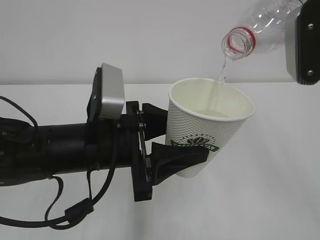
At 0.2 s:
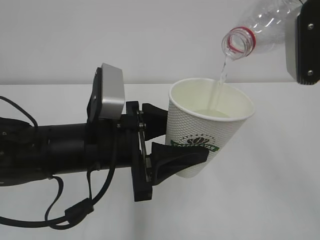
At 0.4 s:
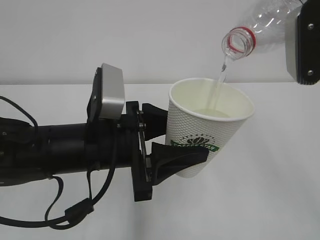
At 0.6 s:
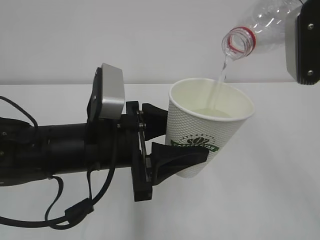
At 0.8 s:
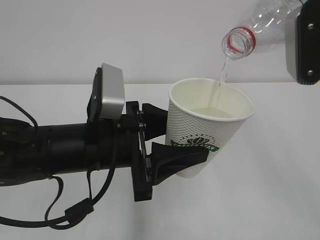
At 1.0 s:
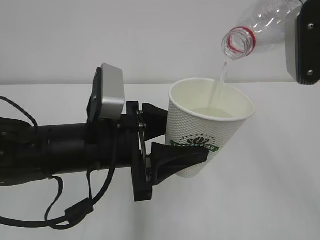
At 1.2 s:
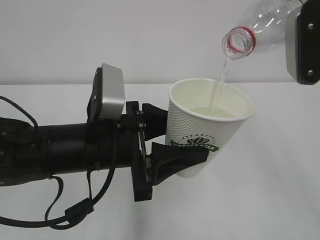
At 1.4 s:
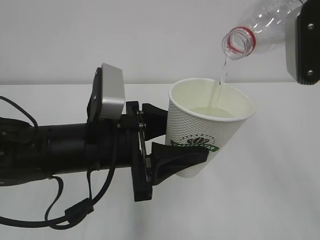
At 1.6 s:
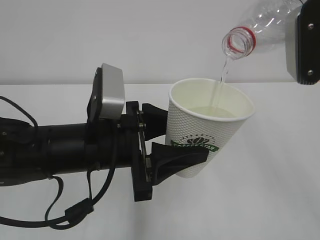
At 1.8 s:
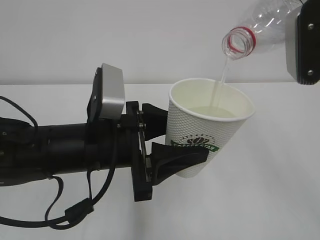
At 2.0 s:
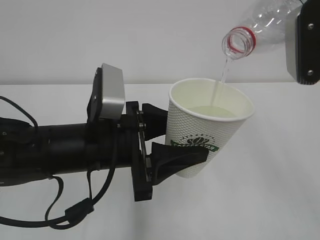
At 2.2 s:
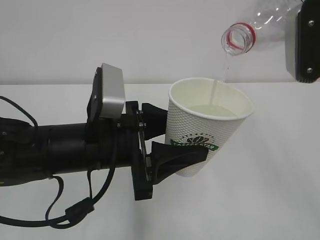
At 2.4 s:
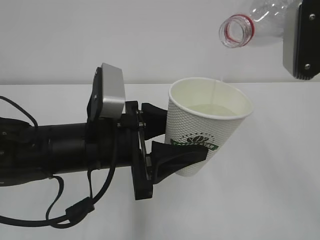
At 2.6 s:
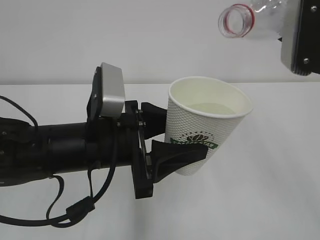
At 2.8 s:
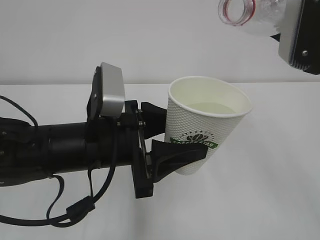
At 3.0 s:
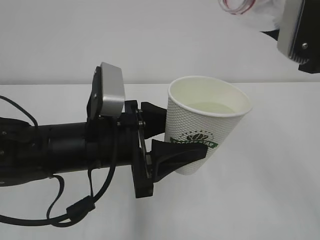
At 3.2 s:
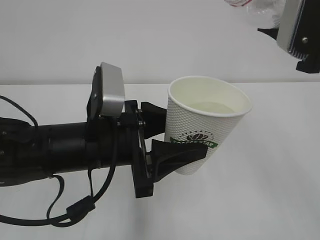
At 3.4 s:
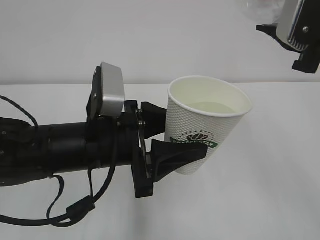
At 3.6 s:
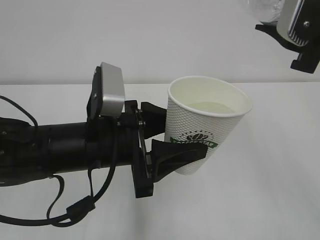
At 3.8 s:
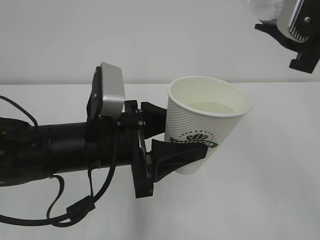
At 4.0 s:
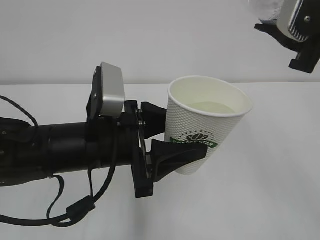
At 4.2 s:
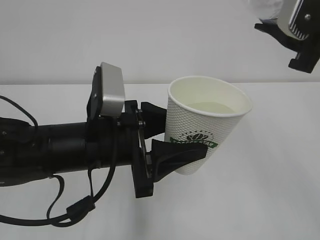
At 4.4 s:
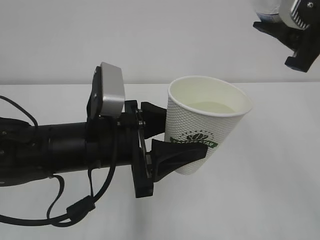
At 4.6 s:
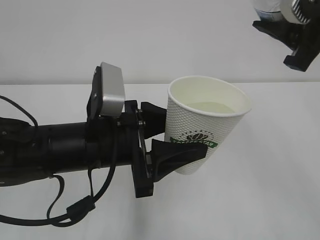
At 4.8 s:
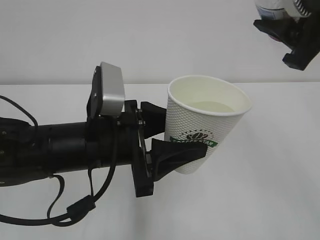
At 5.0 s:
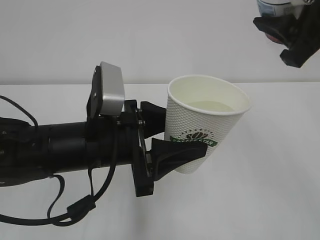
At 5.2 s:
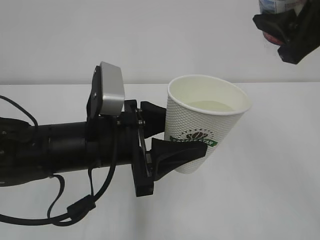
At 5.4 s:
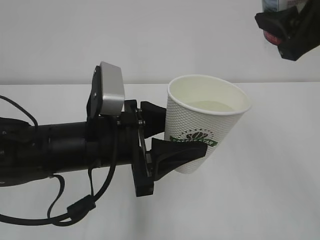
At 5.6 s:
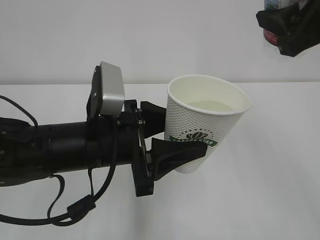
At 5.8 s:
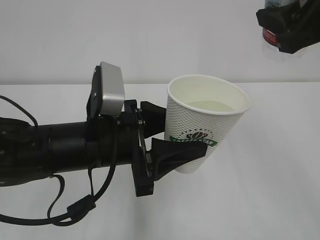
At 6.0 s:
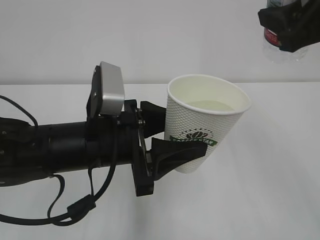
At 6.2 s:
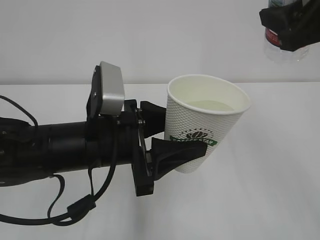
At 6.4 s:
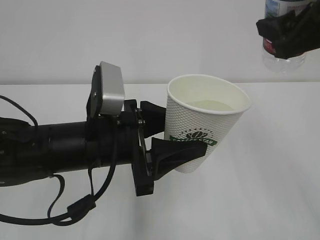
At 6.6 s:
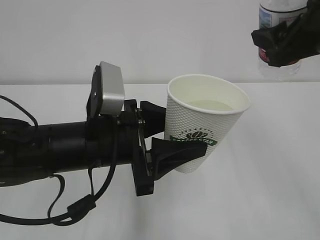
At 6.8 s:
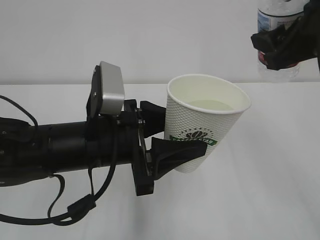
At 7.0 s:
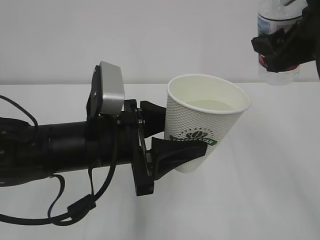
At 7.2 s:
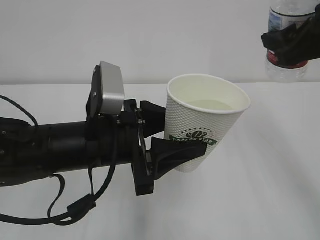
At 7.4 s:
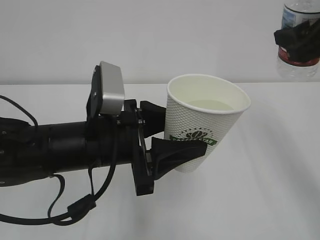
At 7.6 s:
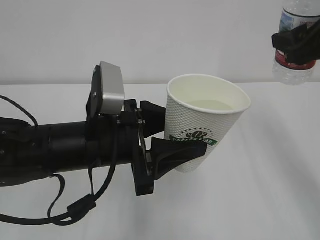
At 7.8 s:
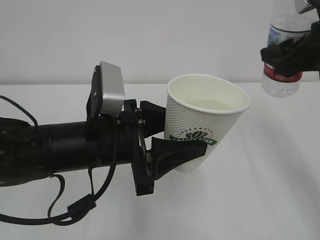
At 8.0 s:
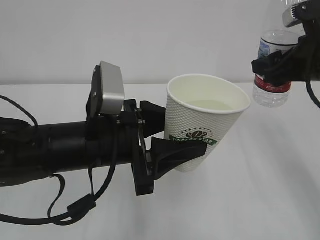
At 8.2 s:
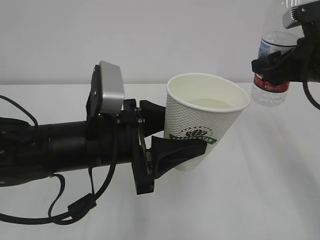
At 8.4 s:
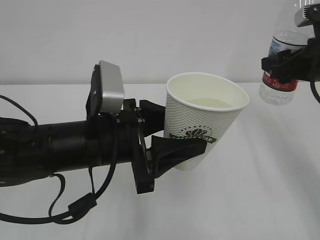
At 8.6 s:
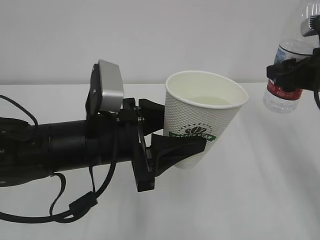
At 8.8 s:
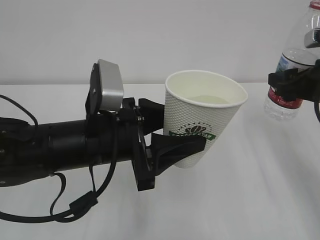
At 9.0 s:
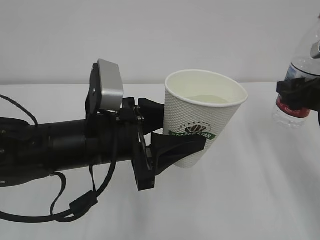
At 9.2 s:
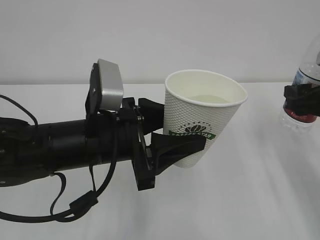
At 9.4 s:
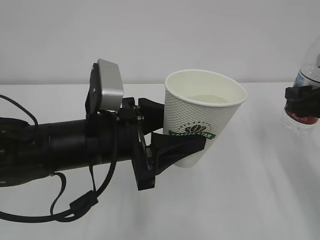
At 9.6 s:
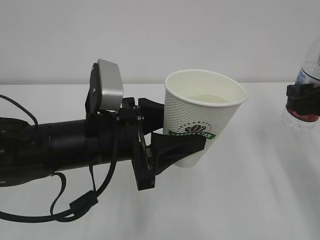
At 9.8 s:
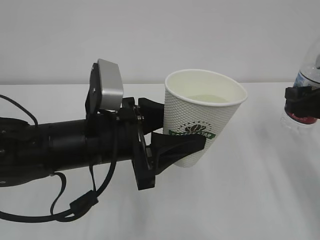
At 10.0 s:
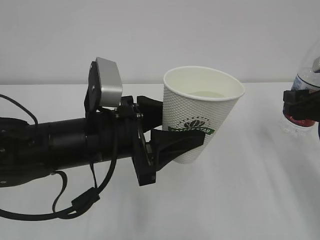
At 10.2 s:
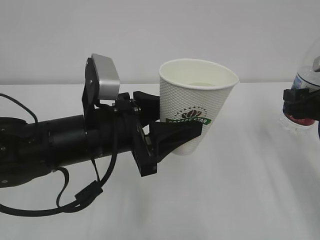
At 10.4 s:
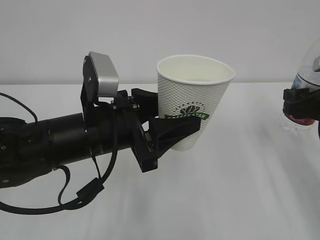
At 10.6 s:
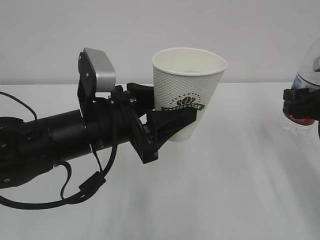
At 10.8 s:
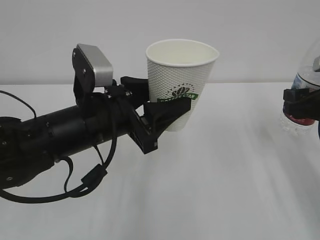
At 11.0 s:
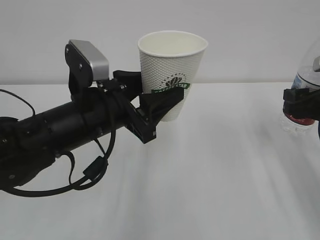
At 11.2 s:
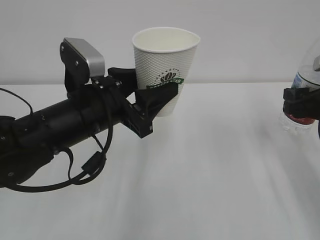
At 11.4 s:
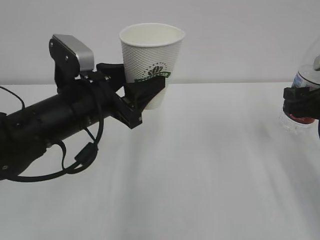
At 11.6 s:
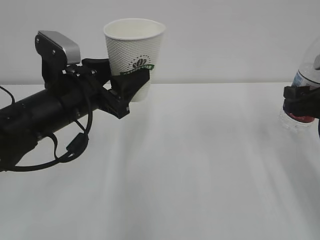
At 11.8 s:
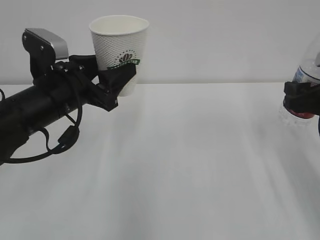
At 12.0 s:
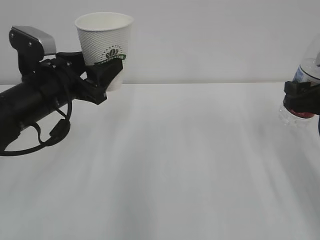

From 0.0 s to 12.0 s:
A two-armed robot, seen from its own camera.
From 0.0 s to 1.6 s: Neither gripper changes place.
From 1.6 s to 3.0 s: The grippers make only small movements.
From 6.0 s to 7.6 s: The right gripper changes place by some 5 cm.
From 7.6 s to 9.0 s: The right gripper shifts about 10 cm downward.
From 9.0 s to 10.4 s: The grippers stay close to where they were, moving slightly.
From 10.4 s to 12.0 s: The left gripper heads to the left and forward, covering some 10 cm.

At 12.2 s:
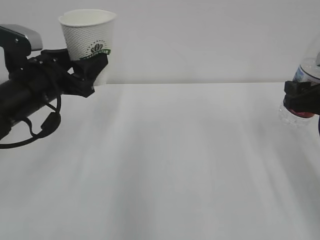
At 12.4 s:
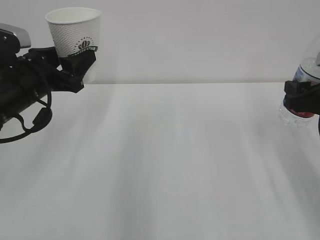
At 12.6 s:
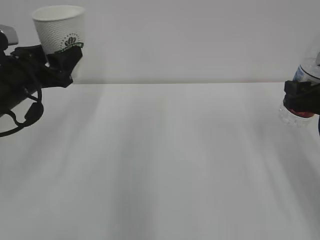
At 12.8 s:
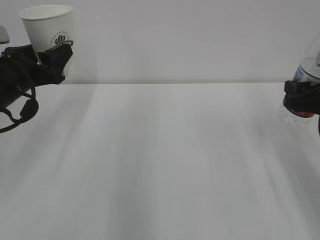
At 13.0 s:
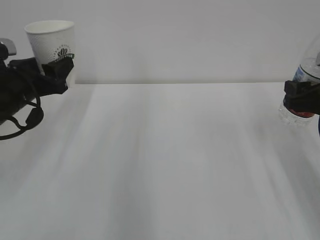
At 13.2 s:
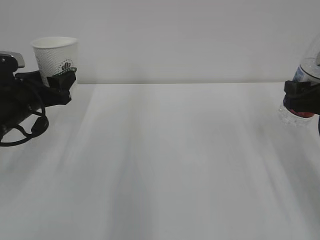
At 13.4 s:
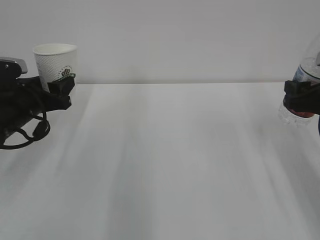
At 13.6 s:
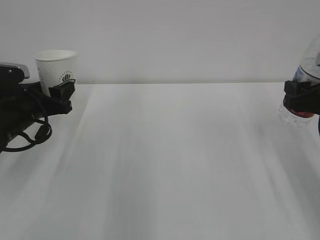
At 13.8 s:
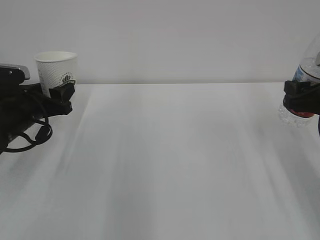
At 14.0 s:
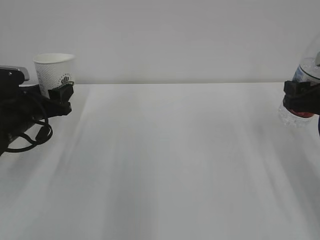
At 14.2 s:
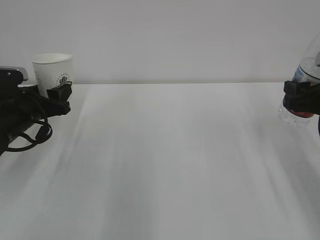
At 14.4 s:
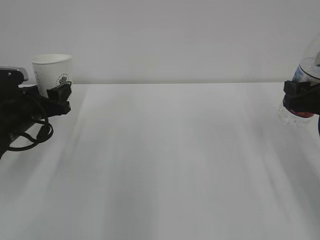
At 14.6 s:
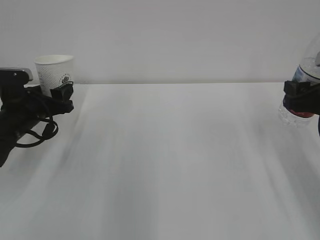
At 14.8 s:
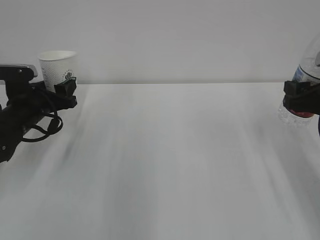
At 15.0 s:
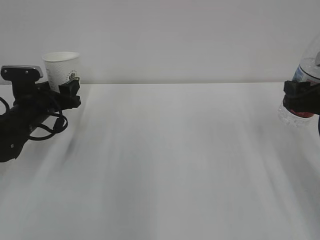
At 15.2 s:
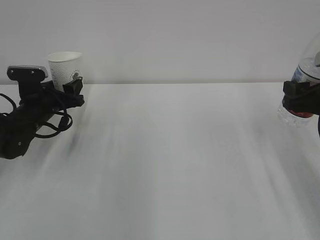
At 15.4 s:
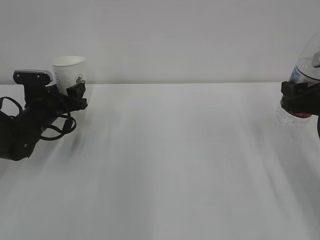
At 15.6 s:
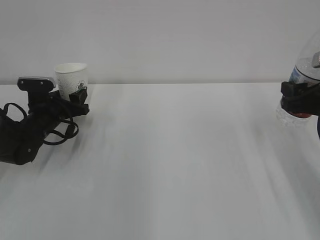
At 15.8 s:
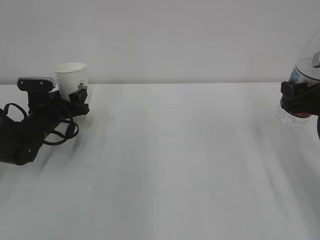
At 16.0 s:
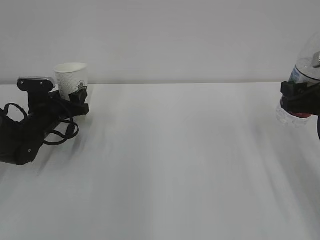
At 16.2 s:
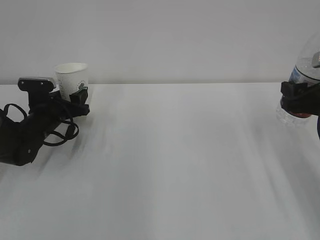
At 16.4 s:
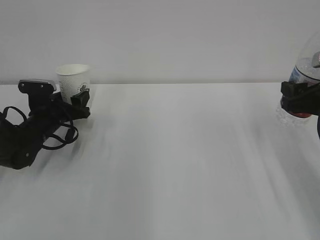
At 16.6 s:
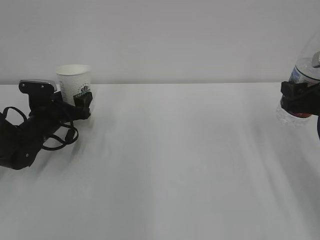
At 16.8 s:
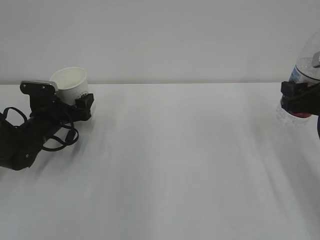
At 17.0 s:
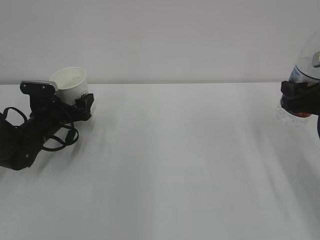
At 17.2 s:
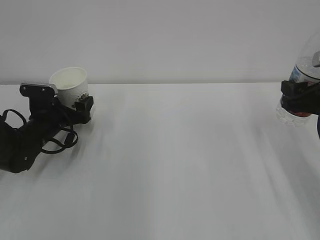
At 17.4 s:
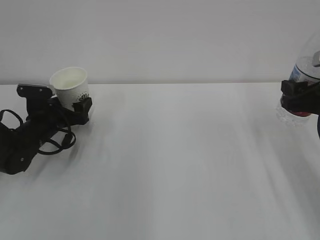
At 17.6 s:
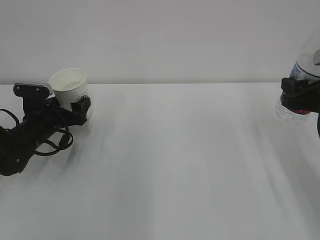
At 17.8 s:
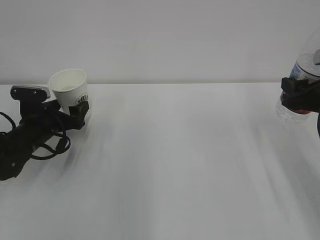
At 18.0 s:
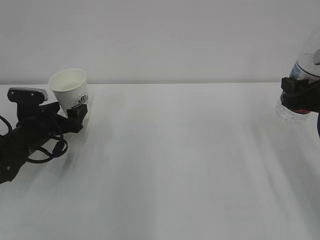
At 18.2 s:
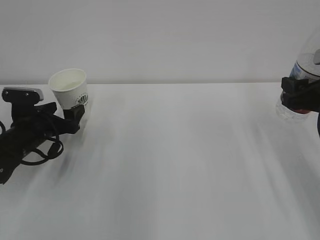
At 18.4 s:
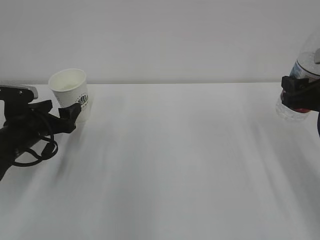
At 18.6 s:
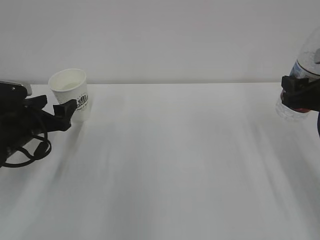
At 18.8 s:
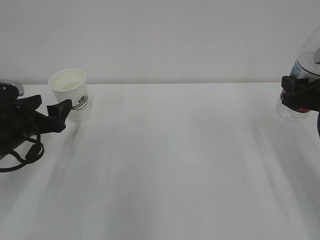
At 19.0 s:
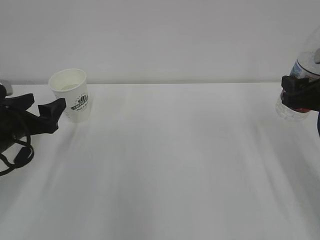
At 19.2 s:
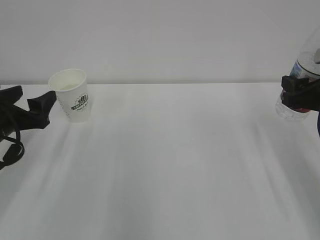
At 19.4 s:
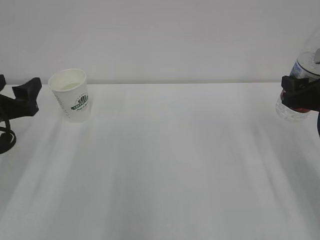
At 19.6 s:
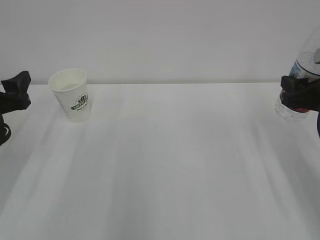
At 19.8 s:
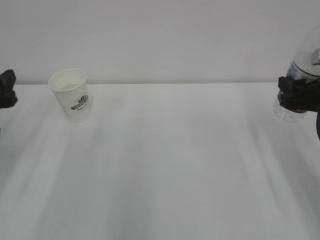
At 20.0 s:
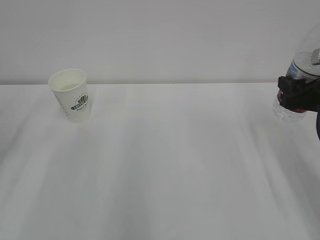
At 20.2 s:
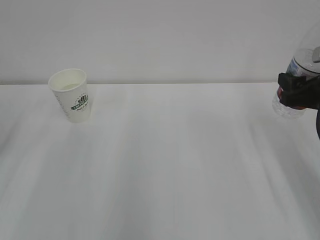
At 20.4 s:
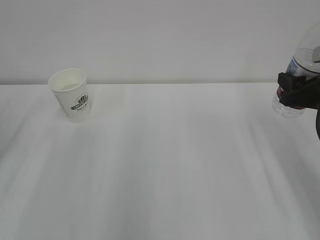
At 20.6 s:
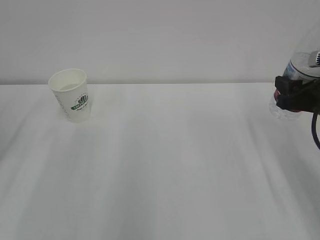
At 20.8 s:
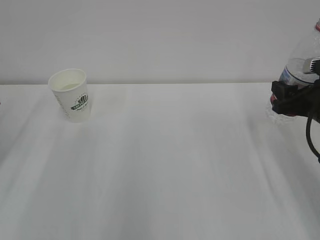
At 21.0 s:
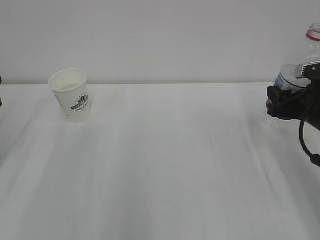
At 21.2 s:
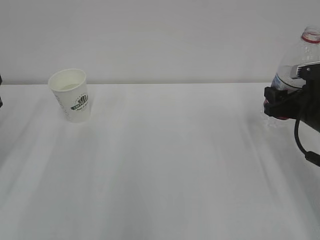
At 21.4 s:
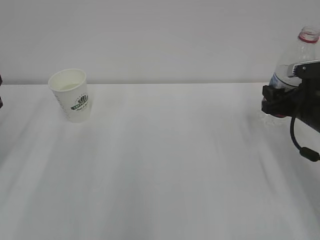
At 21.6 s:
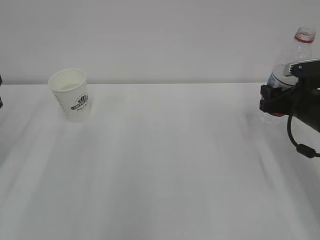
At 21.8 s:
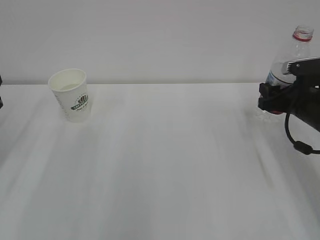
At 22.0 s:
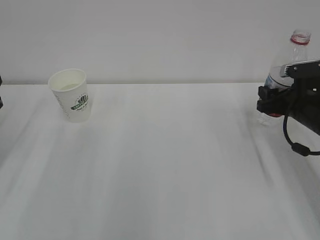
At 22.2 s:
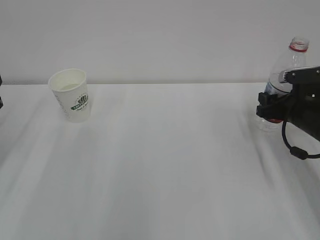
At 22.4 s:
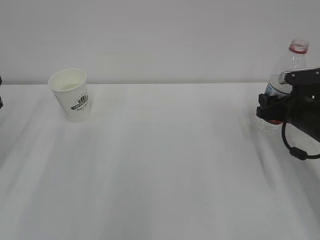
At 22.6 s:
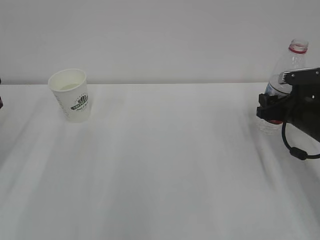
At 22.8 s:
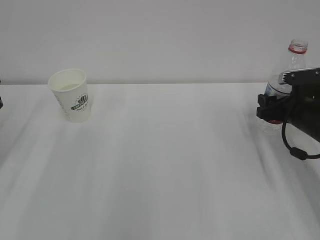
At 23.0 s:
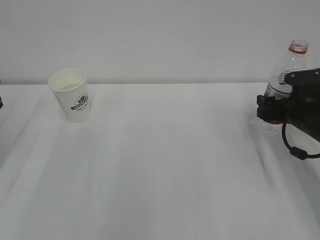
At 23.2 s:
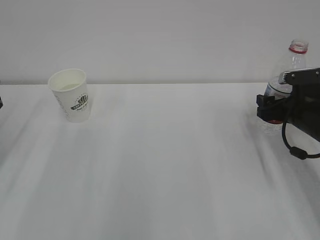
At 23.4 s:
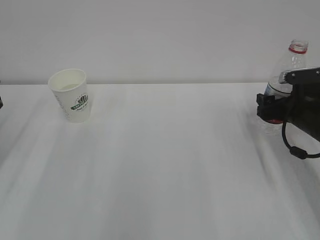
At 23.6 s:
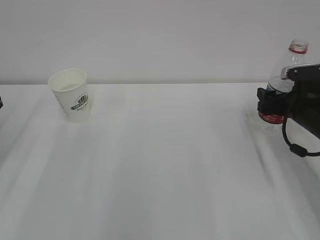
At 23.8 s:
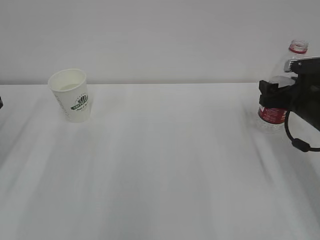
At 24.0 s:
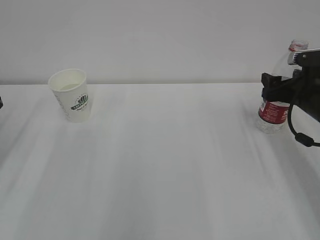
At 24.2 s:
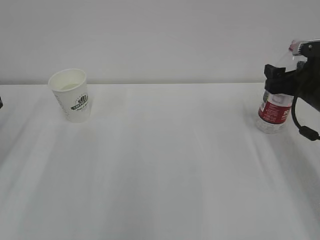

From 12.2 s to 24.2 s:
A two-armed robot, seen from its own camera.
From 12.2 s to 13.8 s: The left gripper is displaced downward and to the left by about 10 cm.
From 13.8 s to 15.2 s: The left gripper goes roughly 5 cm forward.
From 15.2 s to 16.6 s: The left gripper opens its fingers.
From 16.6 s to 18.2 s: The left gripper is displaced backward by about 5 cm.
From 18.2 s to 19.8 s: The left gripper travels upward, backward and to the left by approximately 15 cm.
From 19.8 s to 21.2 s: The right gripper shifts by approximately 5 cm.
From 21.2 s to 22.6 s: The grippers make only small movements.
From 22.6 s to 24.2 s: The right gripper shifts about 5 cm upward, and opens its fingers.
